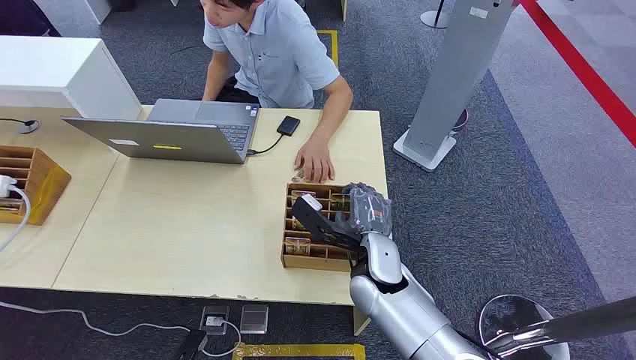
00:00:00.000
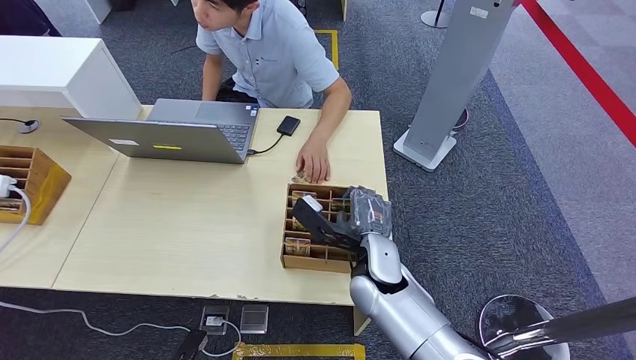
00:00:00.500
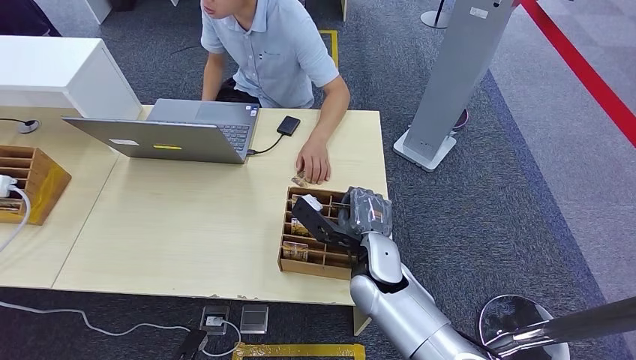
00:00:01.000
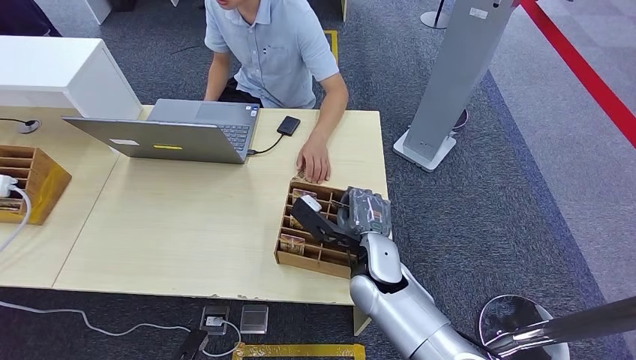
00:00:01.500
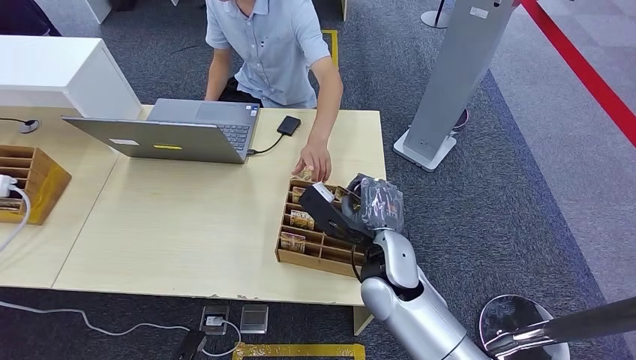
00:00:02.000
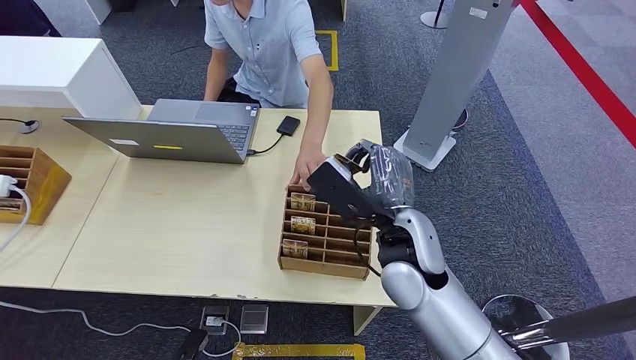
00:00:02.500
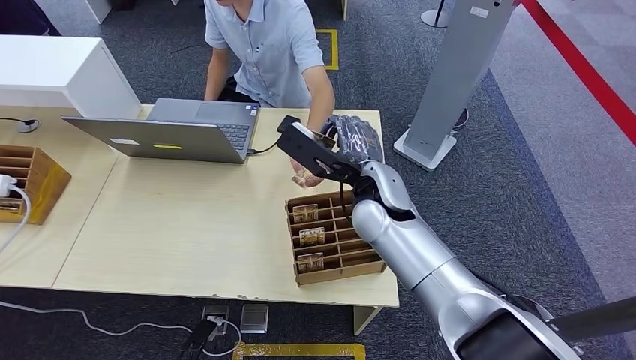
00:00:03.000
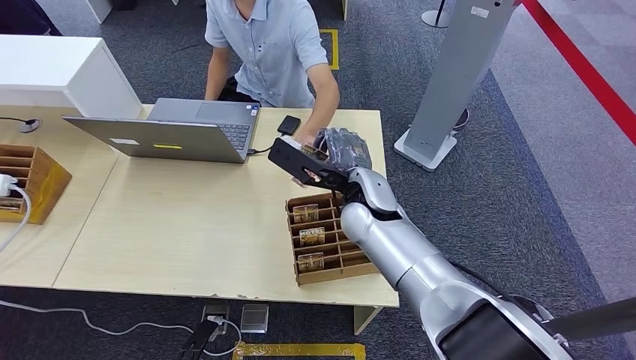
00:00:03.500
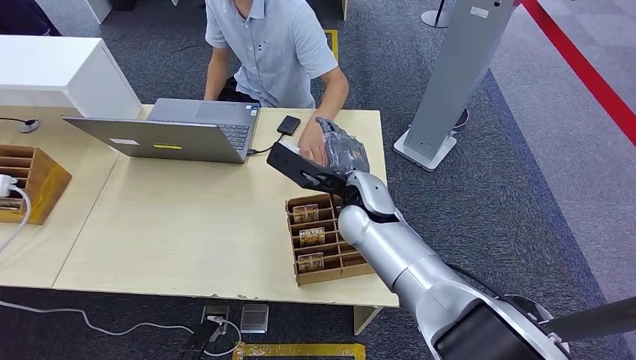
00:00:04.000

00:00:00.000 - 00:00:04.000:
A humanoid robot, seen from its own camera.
Step, 00:00:00.000 - 00:00:02.000: Pick up the key card from the card box.
Step, 00:00:03.000 - 00:00:04.000: Hand the key card to the target.
00:00:02.000 - 00:00:04.000: The right hand moves forward, some 10 cm.
